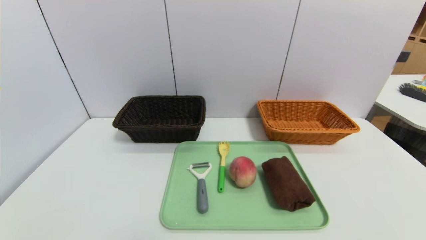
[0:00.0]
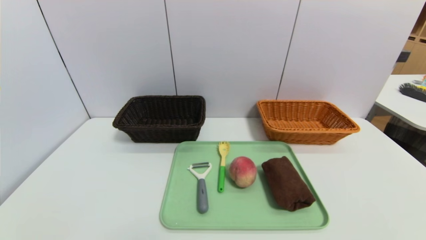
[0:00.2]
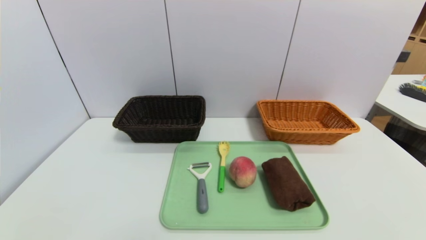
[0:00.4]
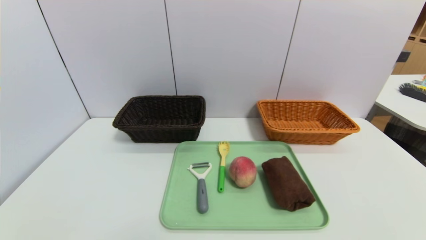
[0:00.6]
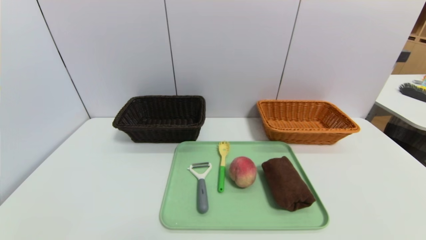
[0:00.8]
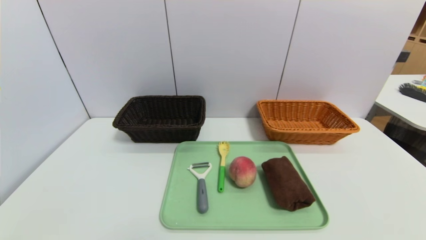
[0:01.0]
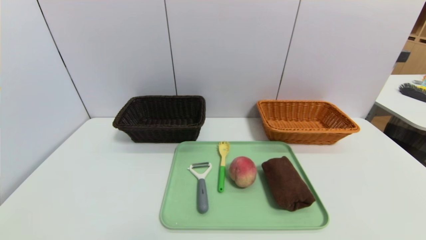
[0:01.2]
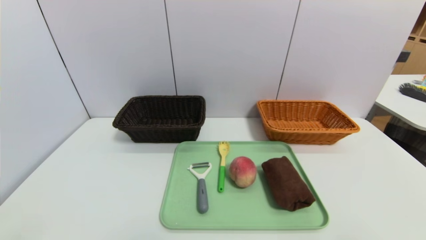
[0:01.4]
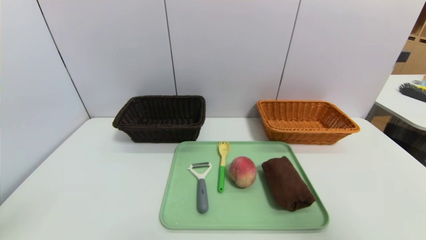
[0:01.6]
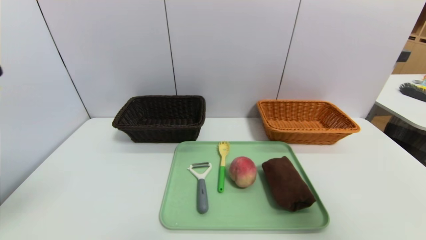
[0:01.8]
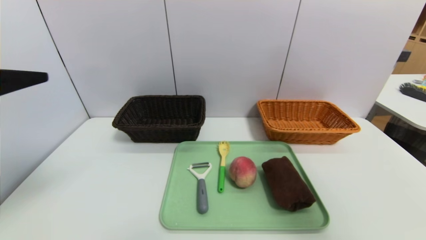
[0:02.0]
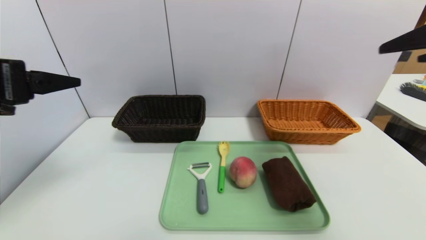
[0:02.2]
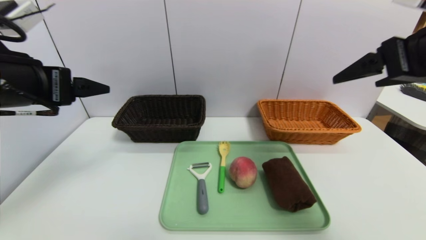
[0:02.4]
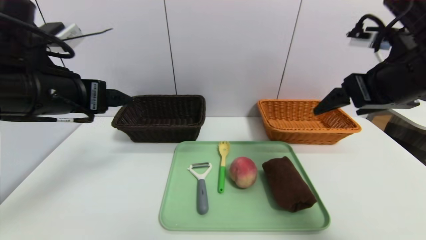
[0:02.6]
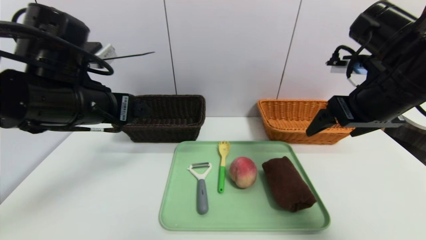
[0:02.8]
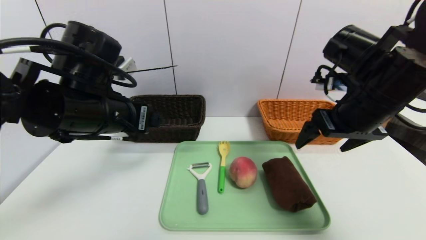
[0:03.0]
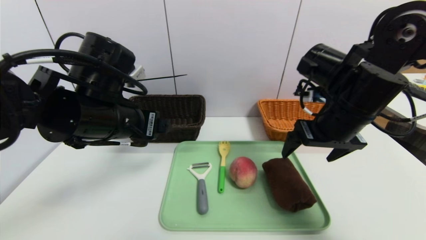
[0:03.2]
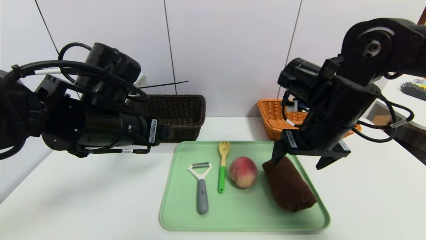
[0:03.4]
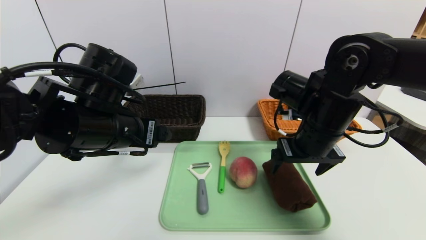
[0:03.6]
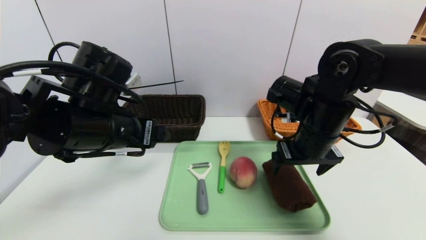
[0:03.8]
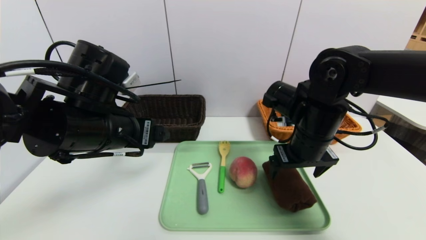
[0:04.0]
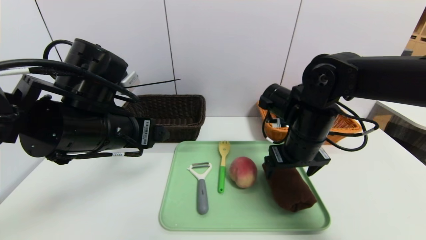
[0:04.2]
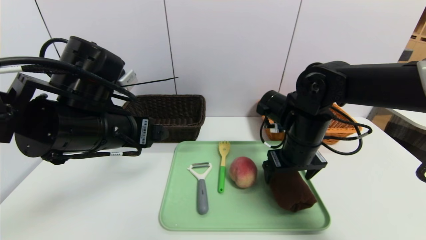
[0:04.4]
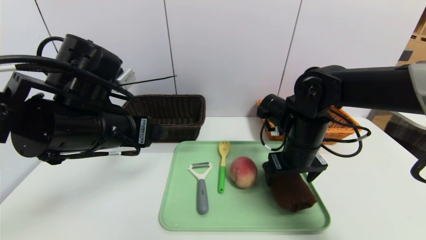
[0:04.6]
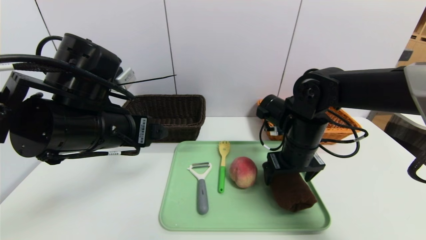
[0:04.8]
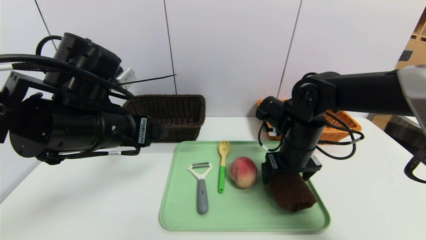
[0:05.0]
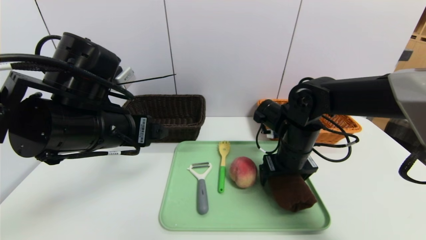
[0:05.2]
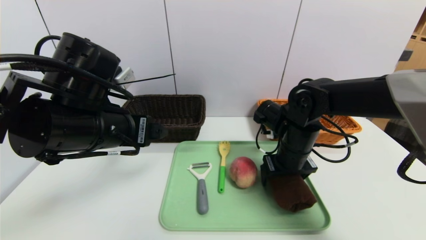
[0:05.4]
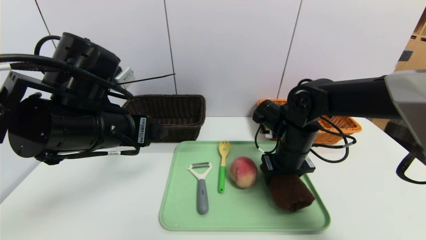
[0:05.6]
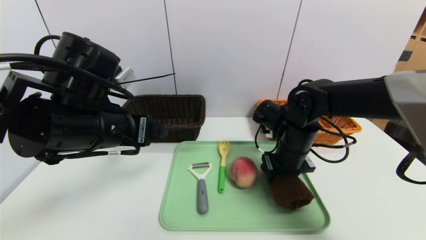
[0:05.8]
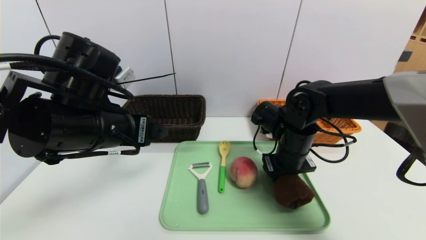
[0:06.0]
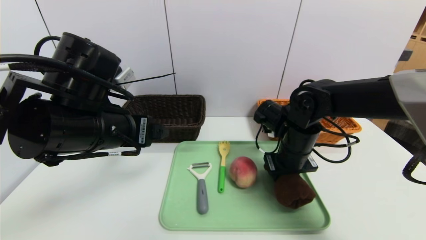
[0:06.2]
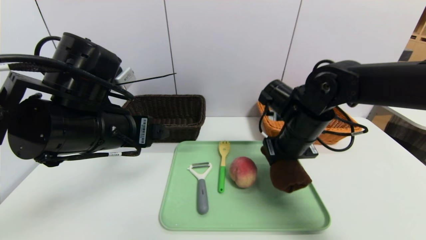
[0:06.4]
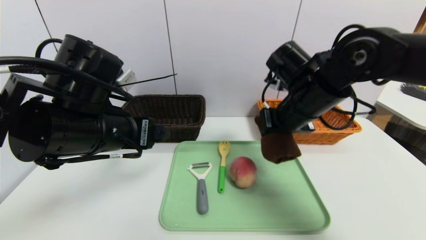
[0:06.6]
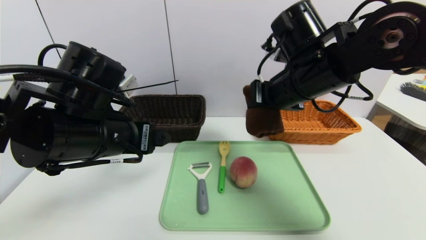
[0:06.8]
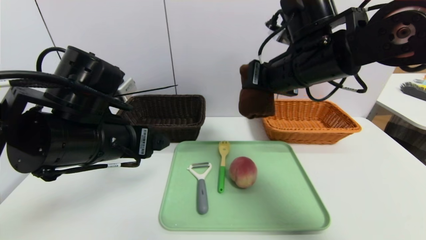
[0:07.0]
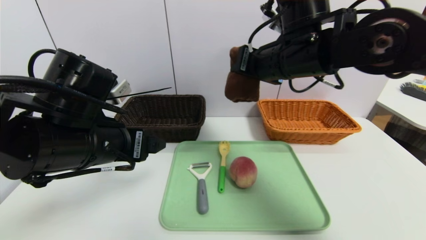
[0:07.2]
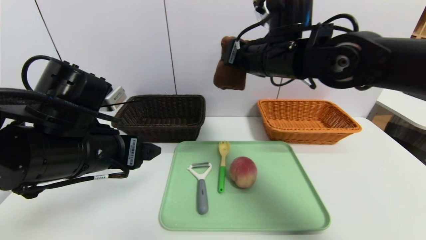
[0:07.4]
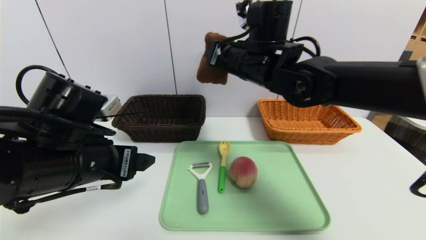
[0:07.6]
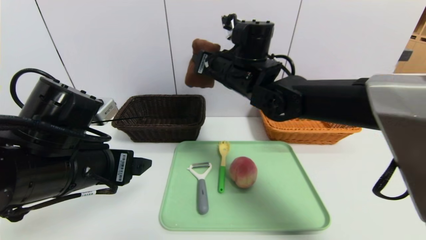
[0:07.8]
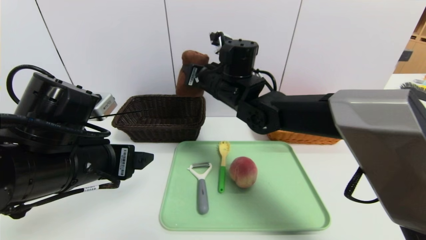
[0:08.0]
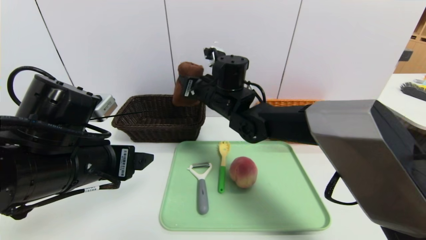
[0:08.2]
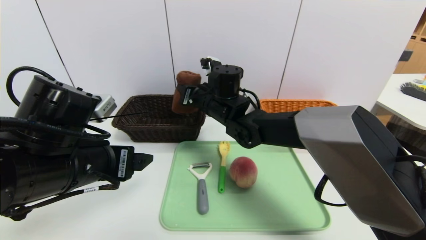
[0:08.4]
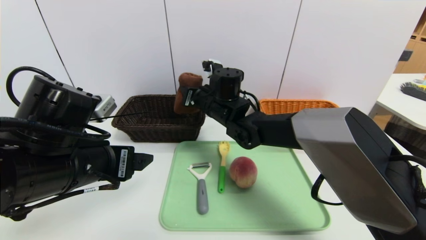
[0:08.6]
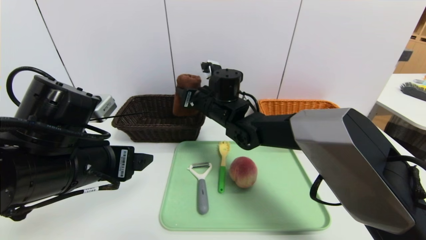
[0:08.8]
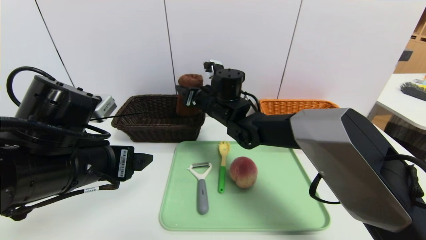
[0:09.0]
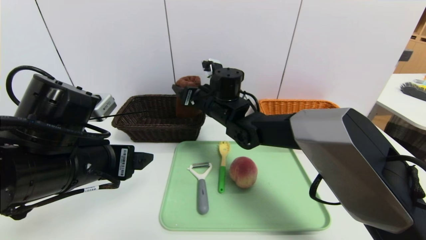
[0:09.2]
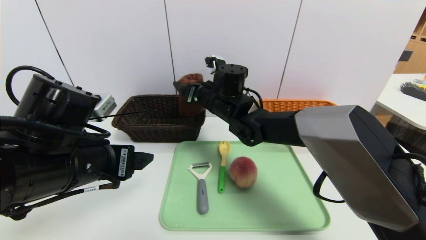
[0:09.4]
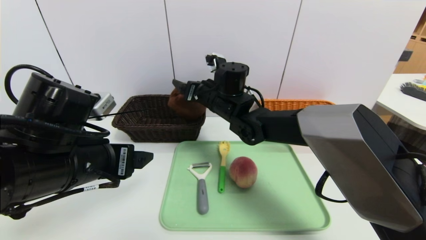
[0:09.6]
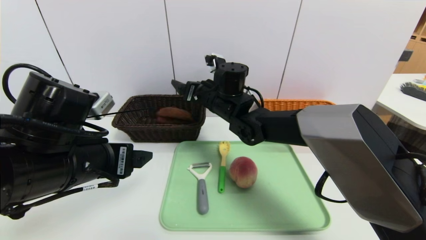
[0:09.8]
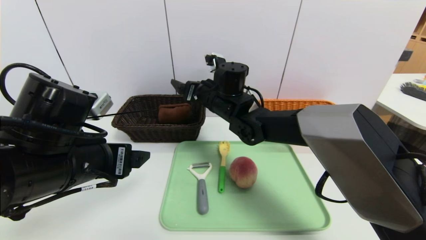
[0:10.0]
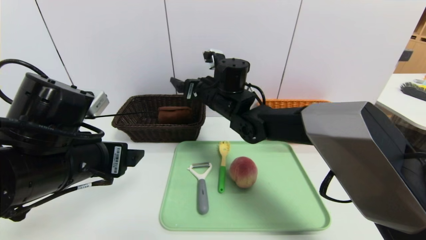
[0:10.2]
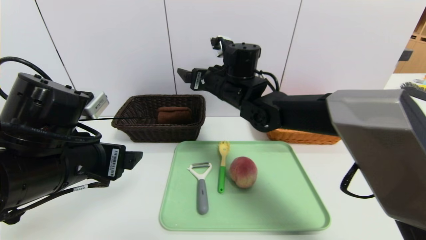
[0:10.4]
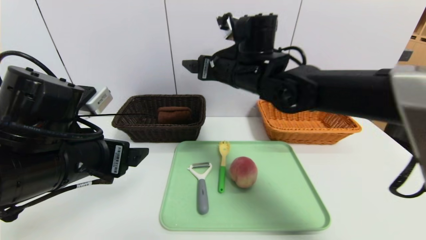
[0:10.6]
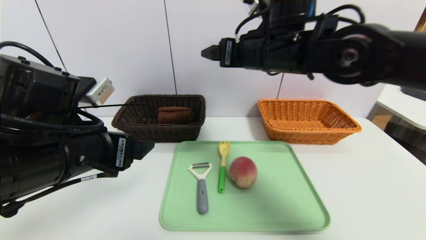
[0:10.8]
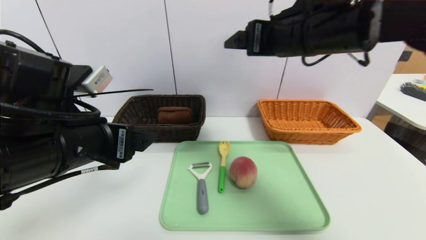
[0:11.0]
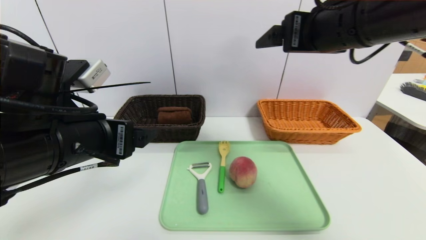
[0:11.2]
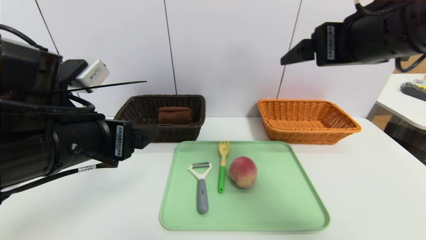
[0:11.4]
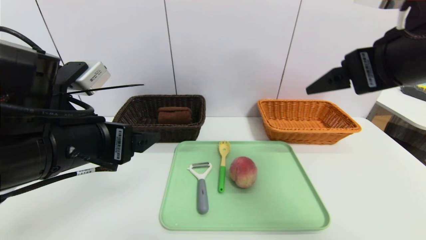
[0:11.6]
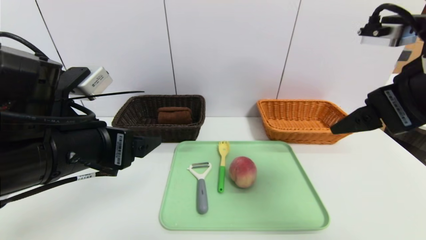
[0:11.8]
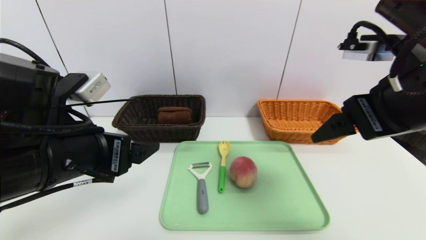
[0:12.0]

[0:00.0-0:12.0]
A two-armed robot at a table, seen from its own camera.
Task of the whole recording: place the food in the right basket with the right gripper, and place the non food items in the left basket with the left gripper.
Step, 0:00.0 to 0:10.2: Grasp the brown towel and put it in the left basket.
0:00.0 to 0:01.6: The right gripper goes roughly 25 cm upward.
0:01.6 to 0:03.0: The right gripper goes roughly 25 cm forward and to the left; the left gripper goes some 25 cm forward and to the right.
0:03.0 to 0:04.4: The right gripper goes roughly 10 cm downward and to the left.
0:04.4 to 0:06.0: The right gripper closes up.
0:06.0 to 0:07.6: The right gripper moves upward and to the left, approximately 20 cm.
0:07.6 to 0:09.0: The right gripper goes approximately 15 cm downward and to the left, and opens its fingers.
0:09.0 to 0:10.4: The right gripper is displaced upward by some 5 cm, and opens up.
0:10.4 to 0:12.0: The right gripper moves backward, to the right and upward, some 30 cm.

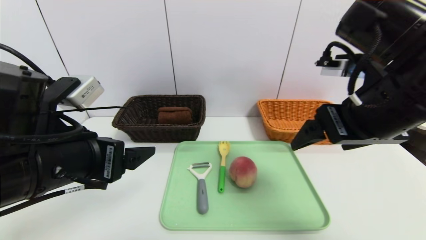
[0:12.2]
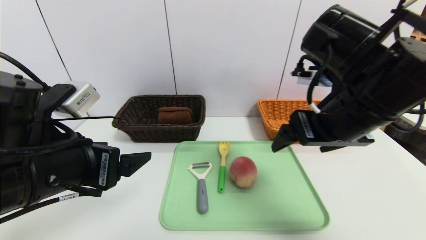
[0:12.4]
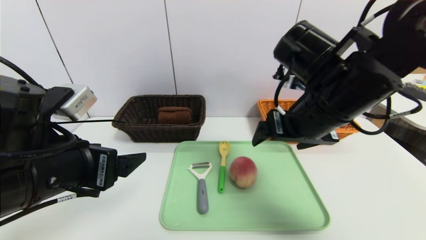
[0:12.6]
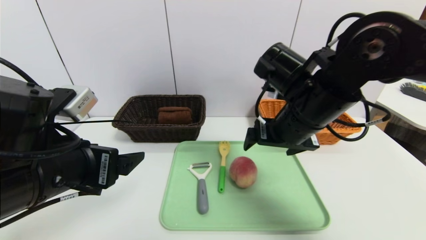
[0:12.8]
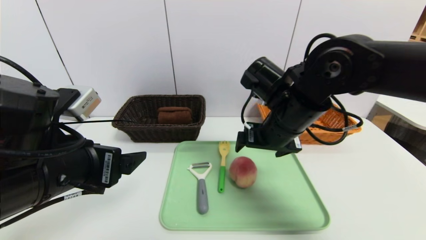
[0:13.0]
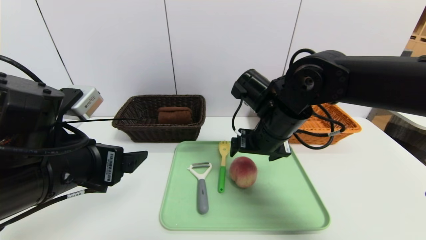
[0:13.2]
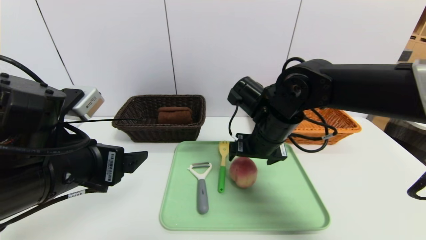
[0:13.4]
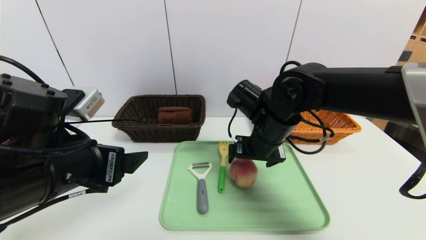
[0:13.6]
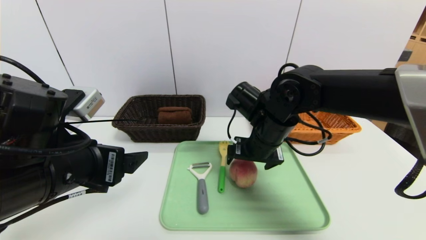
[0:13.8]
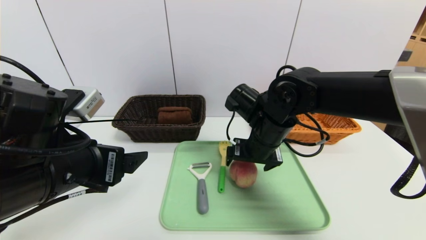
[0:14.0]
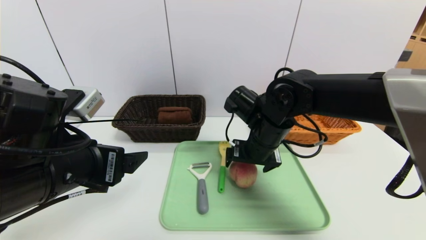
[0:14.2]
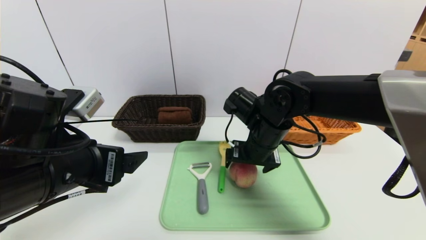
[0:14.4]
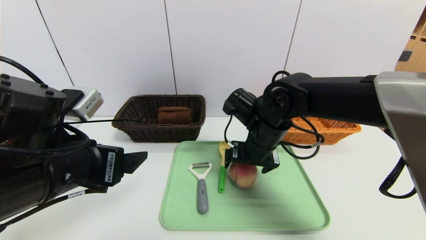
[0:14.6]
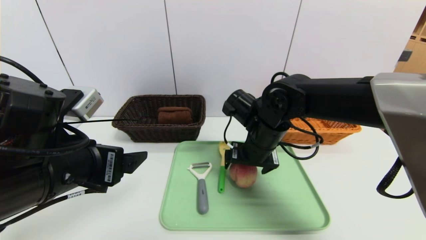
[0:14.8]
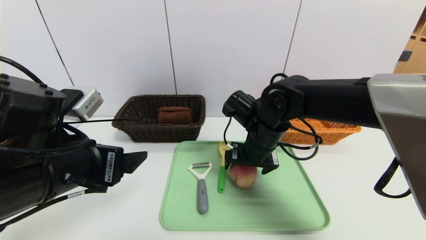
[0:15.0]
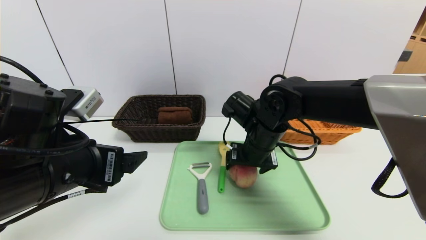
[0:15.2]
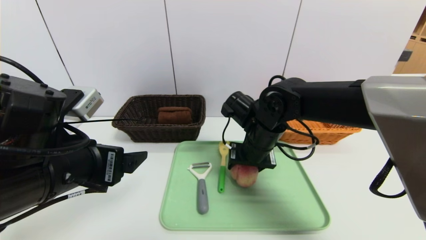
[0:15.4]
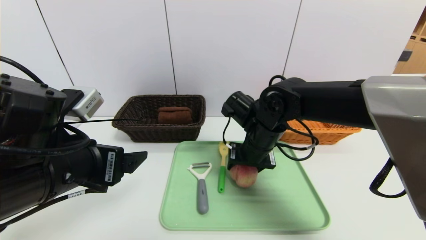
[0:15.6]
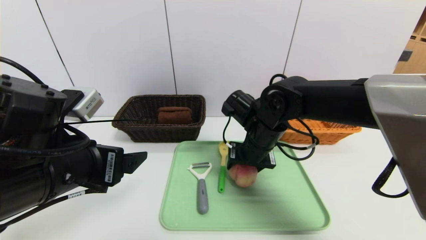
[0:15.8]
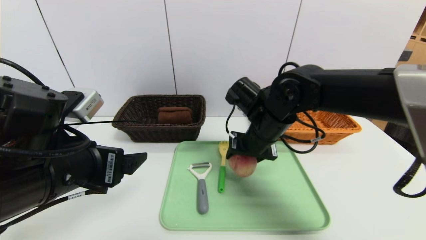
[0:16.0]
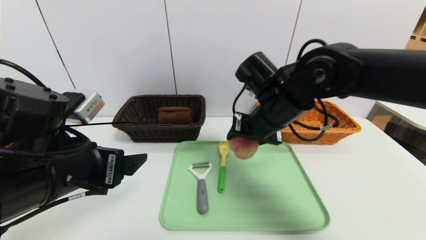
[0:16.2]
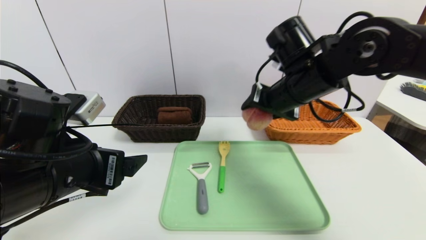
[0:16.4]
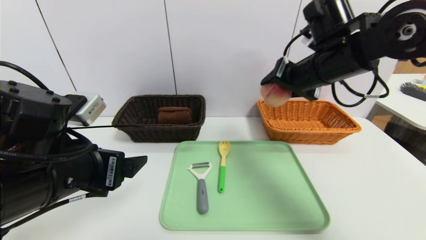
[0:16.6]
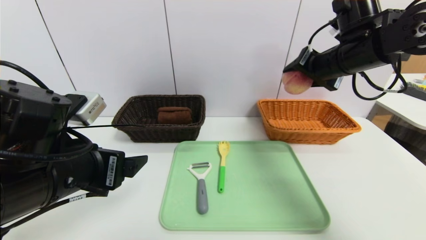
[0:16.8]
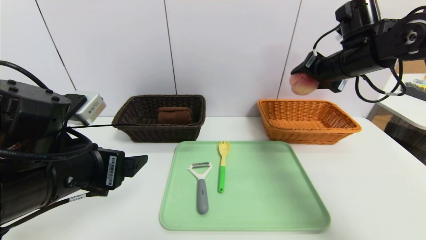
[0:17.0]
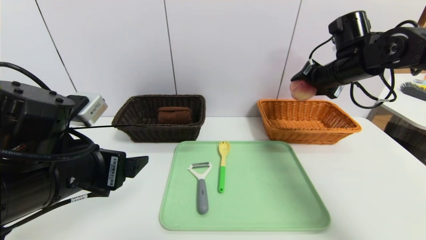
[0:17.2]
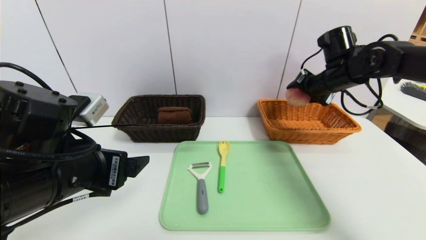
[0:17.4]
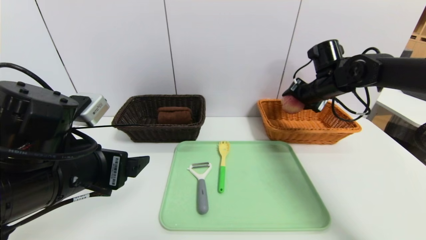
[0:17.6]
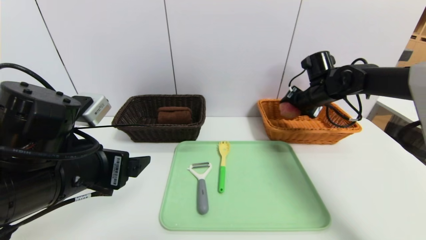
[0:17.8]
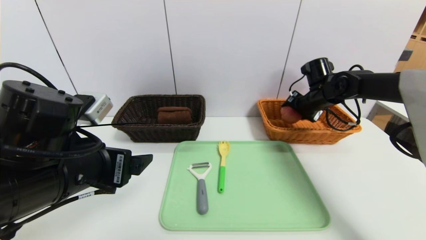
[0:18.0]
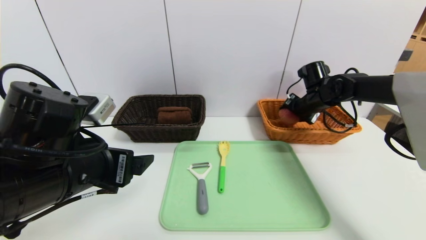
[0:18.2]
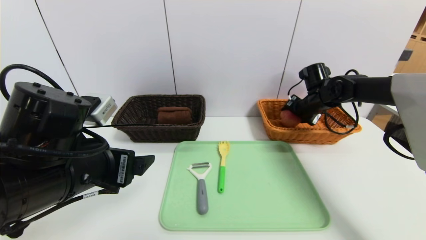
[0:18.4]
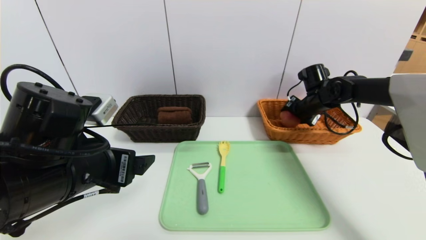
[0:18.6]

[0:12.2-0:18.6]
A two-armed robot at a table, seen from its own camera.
Task of the whole recording: place the food in the right basket with the right gripper, and place the non food items in the left basket with the left gripper.
0:12.2 to 0:13.8: The right gripper is displaced downward, forward and to the left by about 20 cm.
0:13.8 to 0:15.4: The right gripper closes.
0:15.4 to 0:17.0: The right gripper heads to the right and upward, covering about 20 cm.
0:17.0 to 0:18.6: The right gripper travels downward and forward by about 15 cm.
